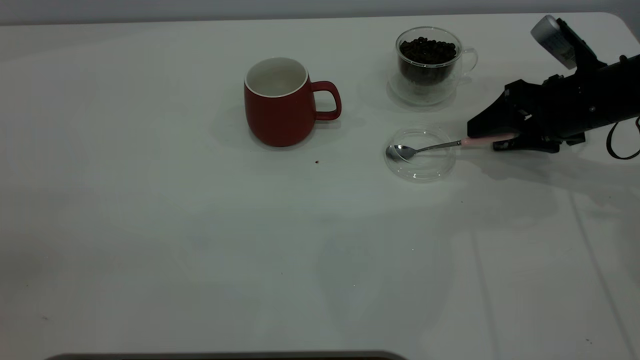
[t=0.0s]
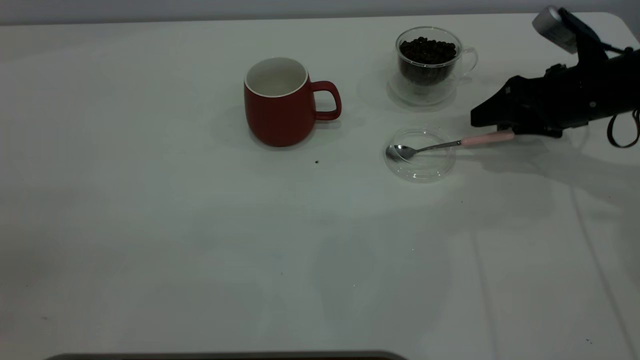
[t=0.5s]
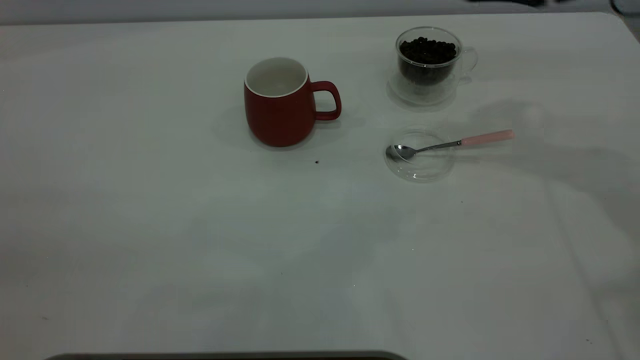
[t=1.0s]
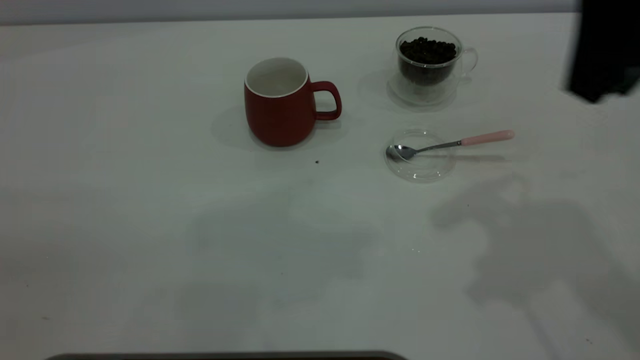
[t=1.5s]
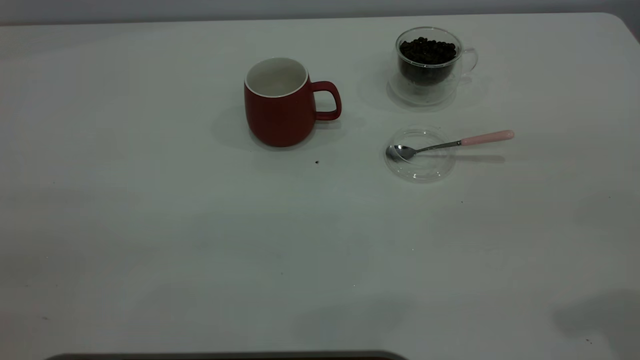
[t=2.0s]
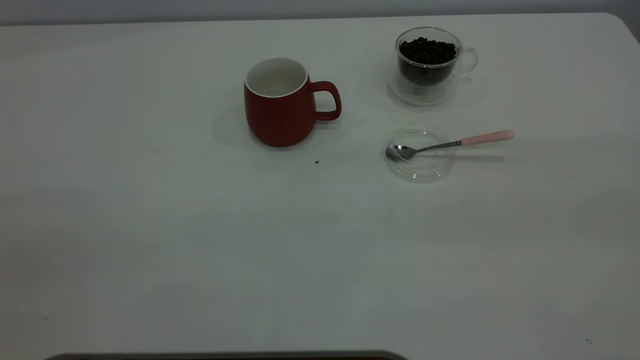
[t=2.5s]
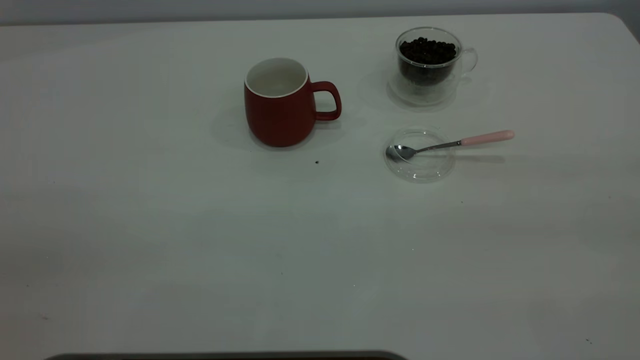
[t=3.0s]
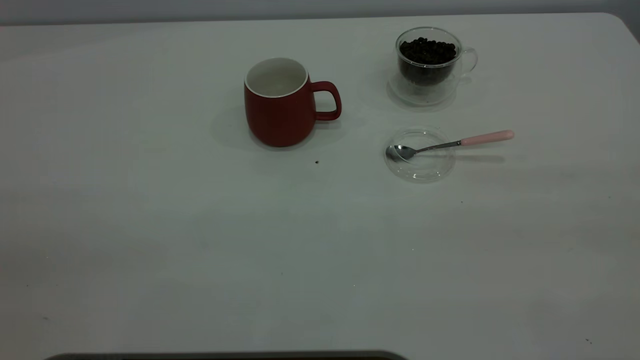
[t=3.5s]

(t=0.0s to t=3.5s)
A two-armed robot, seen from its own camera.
Task of the whole recording: the left gripper place the red cup in the center of the table, the right gripper take the pink spoon from the cup lid and scoop out the coffee beans from the coffee cup and put them into the red cup, the right gripper put the spoon back into the cup lid.
t=0.0s - t=2.0s: The right gripper is displaced backward and upward by some 35 cm.
